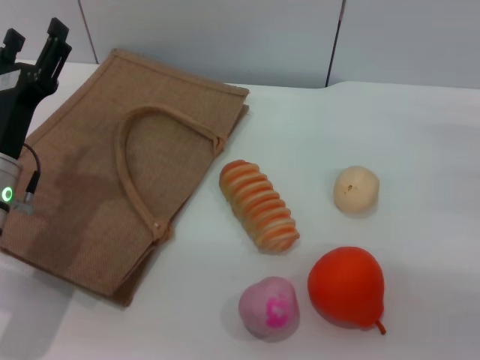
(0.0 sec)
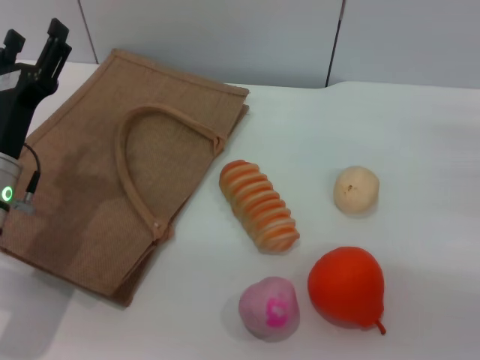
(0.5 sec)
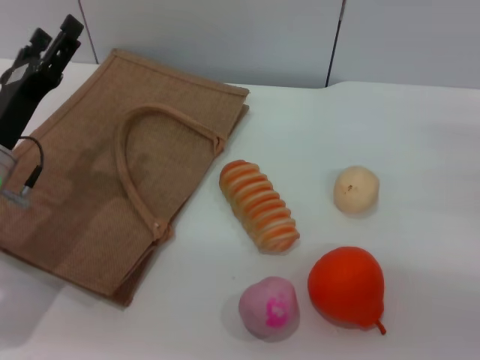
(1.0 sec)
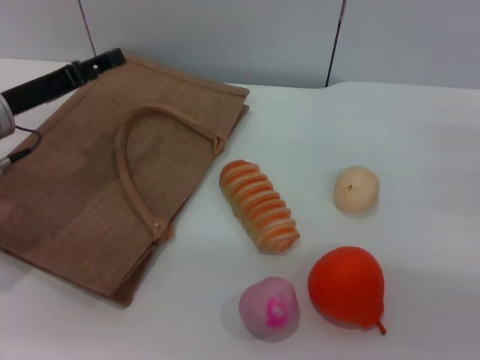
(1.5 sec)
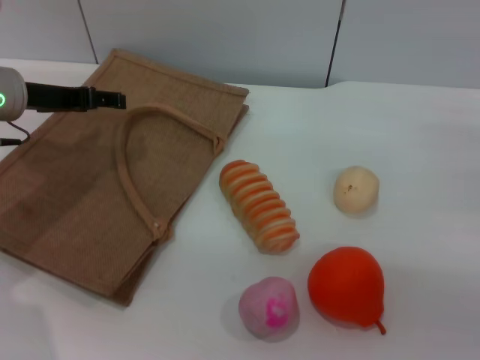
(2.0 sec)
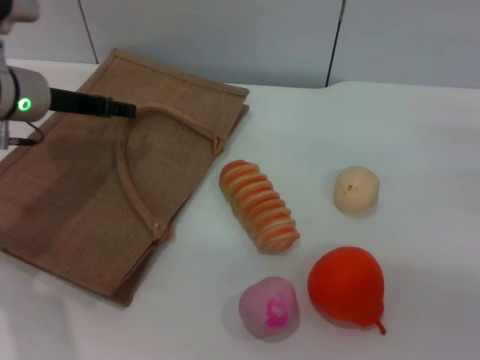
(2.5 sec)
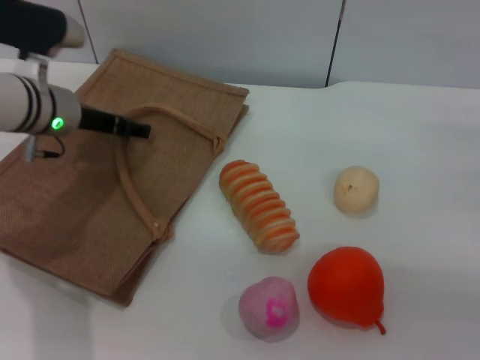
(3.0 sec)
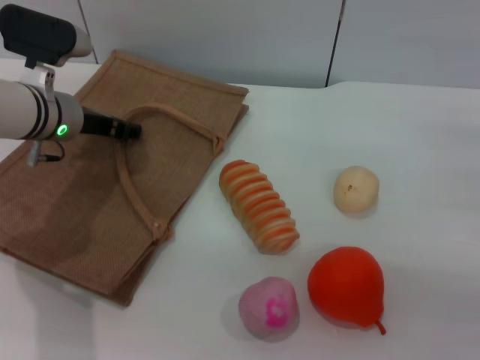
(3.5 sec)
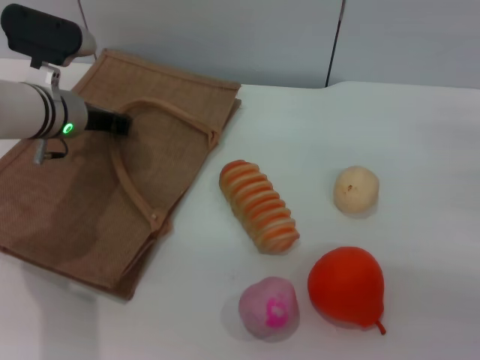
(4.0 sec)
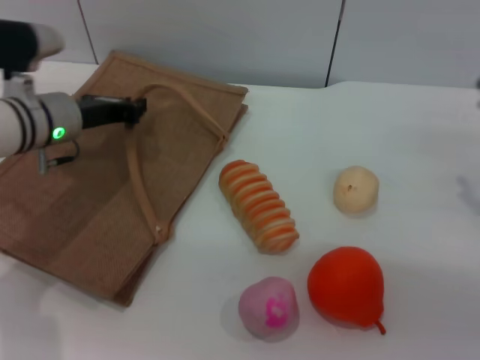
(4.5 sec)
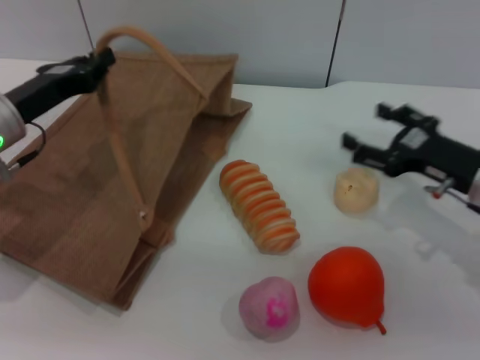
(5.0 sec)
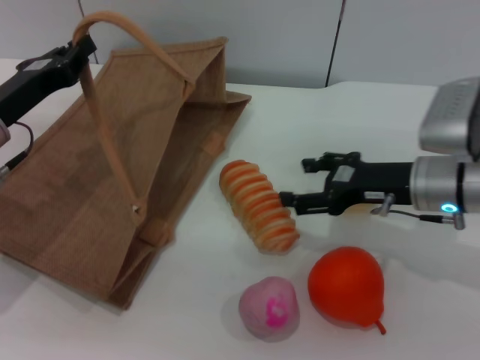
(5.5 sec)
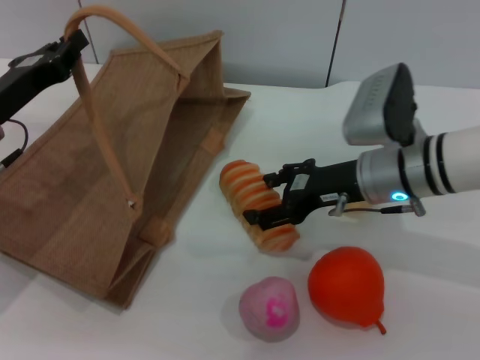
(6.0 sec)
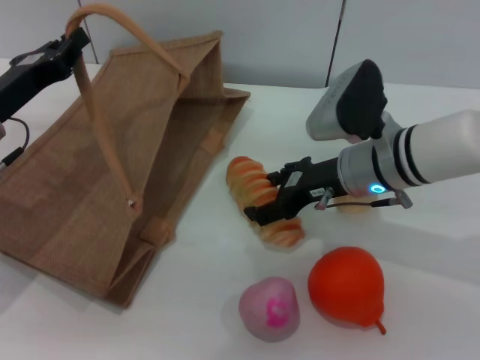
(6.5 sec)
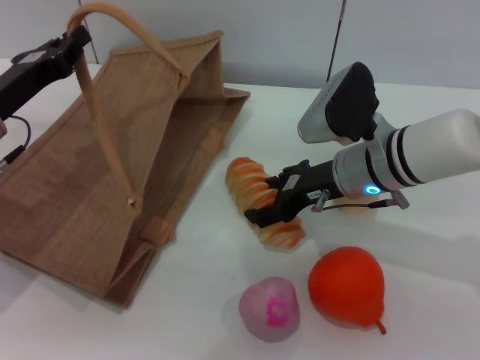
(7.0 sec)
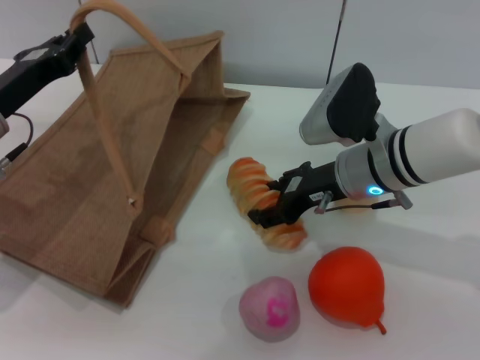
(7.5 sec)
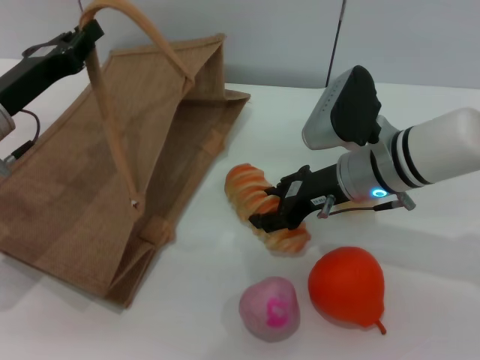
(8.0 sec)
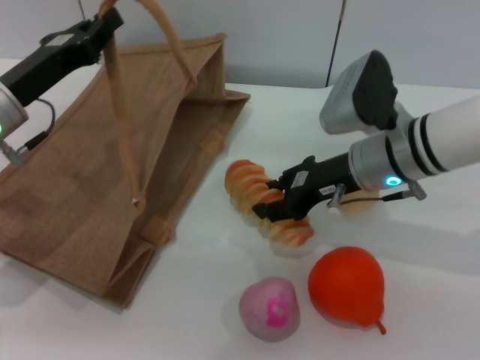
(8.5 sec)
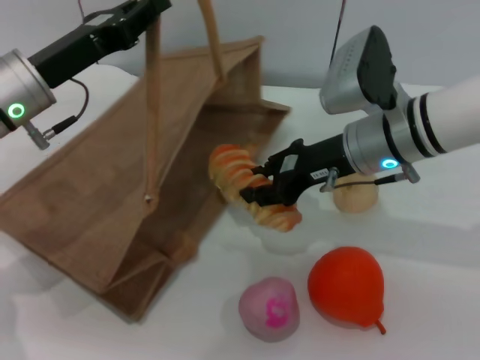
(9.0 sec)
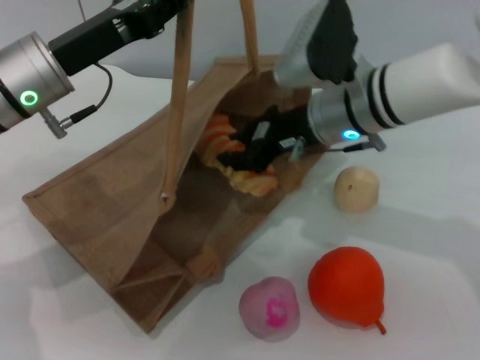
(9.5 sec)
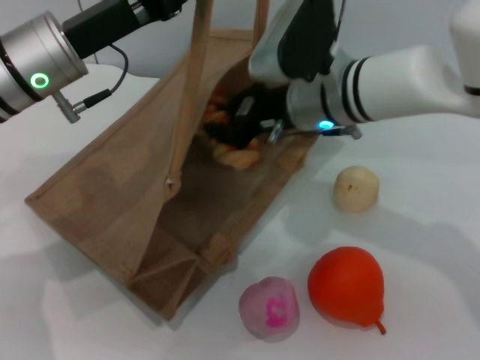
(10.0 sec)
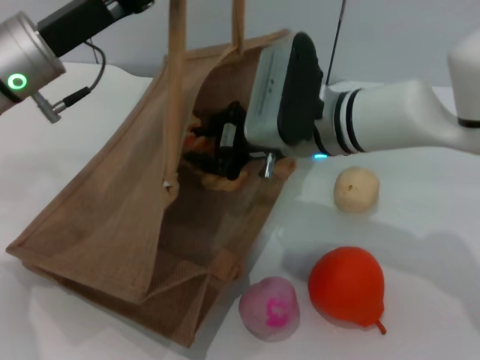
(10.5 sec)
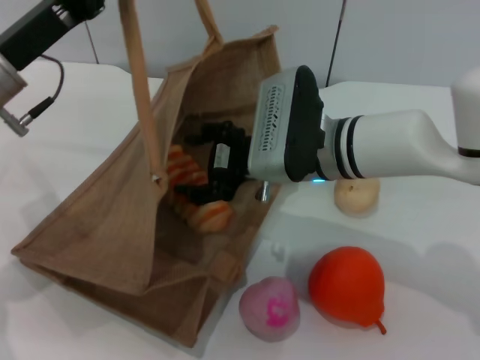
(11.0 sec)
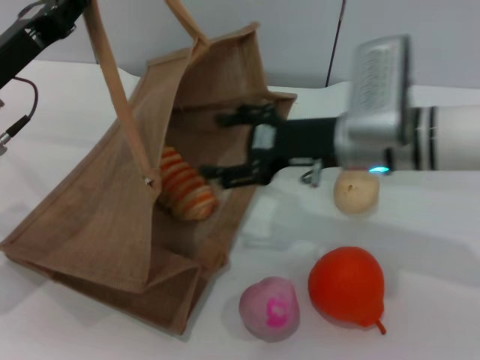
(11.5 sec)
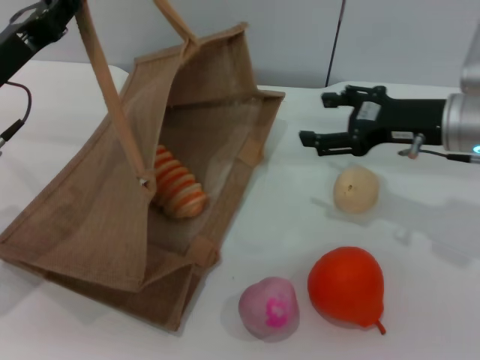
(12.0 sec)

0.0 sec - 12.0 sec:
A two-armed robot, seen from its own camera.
Task of the whole recording: pick up the bread and egg yolk pastry from the table and place it in the brown handbag.
Step, 0.0 sec - 4.5 sec: Lift the woven bag with the left gripper to open it.
Step, 5.0 sec - 8.5 sec: Pick up the bread with the right gripper.
Step, 9.5 sec - 11.0 sec: Place the bread into the woven bag with the right gripper.
0.0 sec - 2.0 sec: The left gripper moves forward and upward, some 15 cm.
2.0 sec - 4.0 sec: The left gripper goes approximately 5 cm to the right and downward, and closes its fingers.
4.0 sec - 6.0 sec: The right gripper is displaced to the left by approximately 20 cm. Meanwhile the left gripper is displaced backward and to the left by some 10 cm, and closes up.
6.0 sec - 8.0 sec: The right gripper closes.
8.0 sec - 10.0 sec: The right gripper travels to the left by approximately 5 cm, and closes its fingers; the left gripper shifts some 10 cm to the right and upward.
10.0 sec - 12.0 sec: The right gripper heads to the right, covering roughly 15 cm, and opens up, while the left gripper travels to the left by some 10 cm.

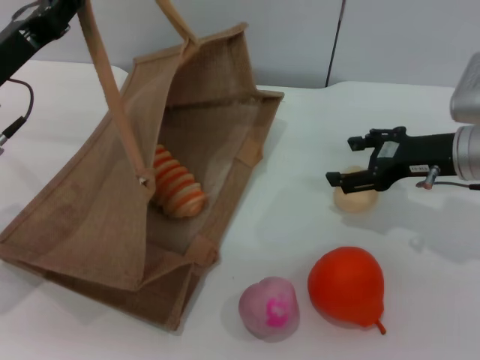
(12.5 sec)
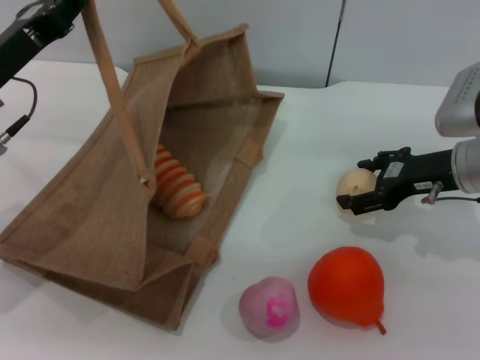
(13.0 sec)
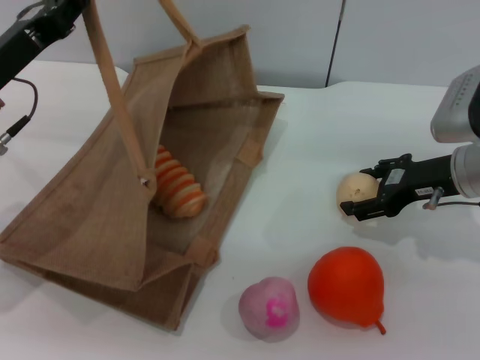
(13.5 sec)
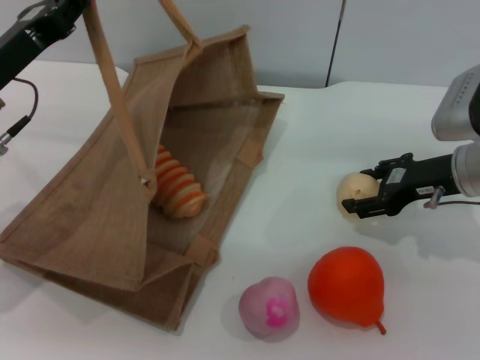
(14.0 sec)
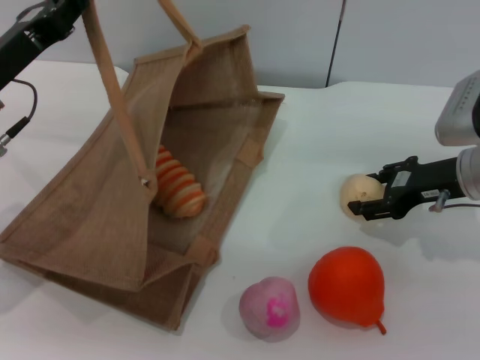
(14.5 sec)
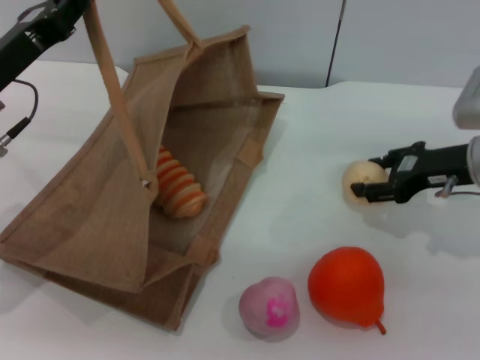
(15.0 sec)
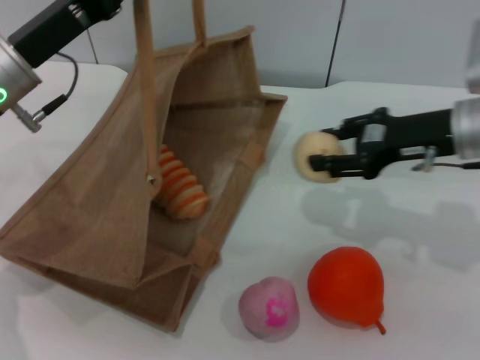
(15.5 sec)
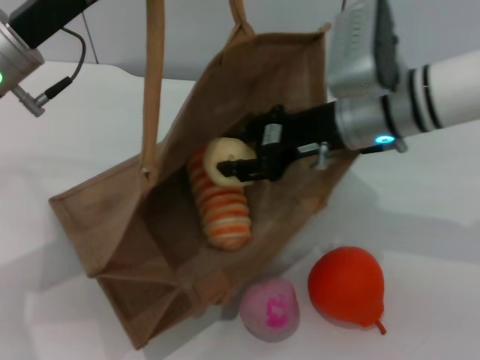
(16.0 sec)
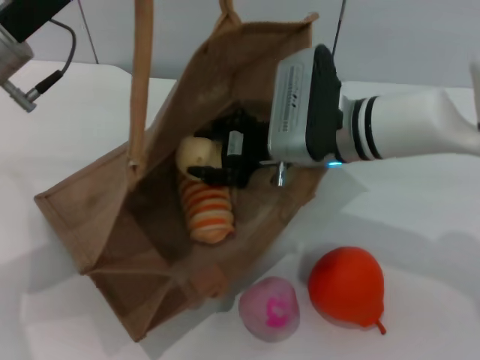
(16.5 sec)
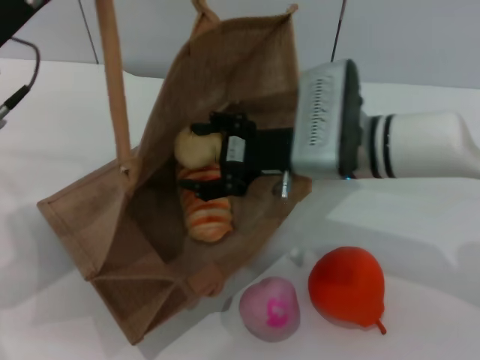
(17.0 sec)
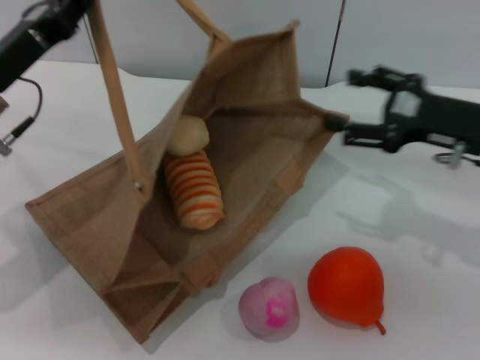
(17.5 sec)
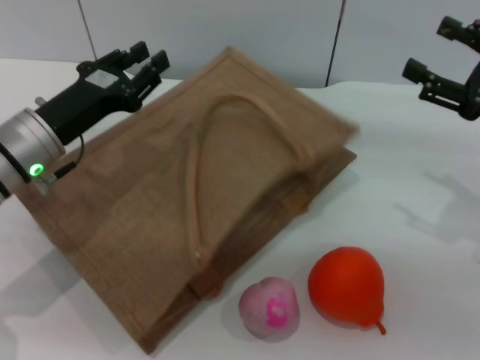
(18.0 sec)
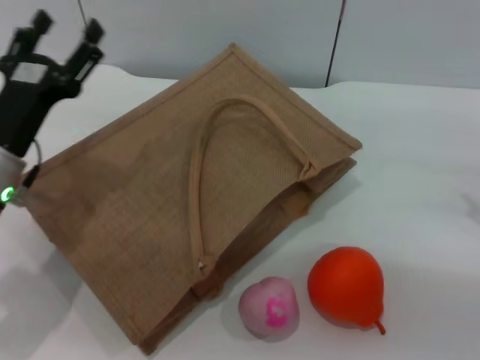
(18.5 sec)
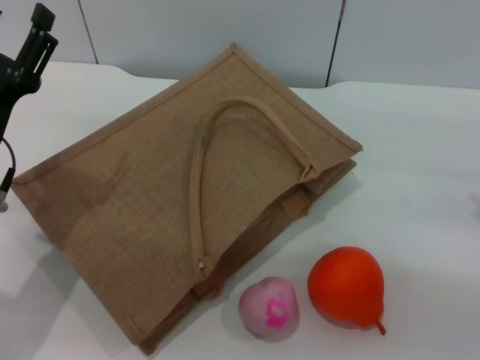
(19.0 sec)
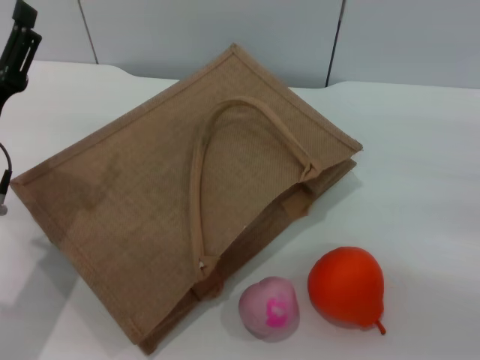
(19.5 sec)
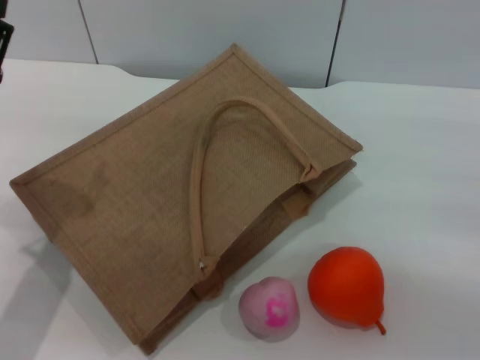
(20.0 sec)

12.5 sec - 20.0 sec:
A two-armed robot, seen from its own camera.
Task of the whole recording: pick up the bread and egg yolk pastry from the table and place it in the brown handbag.
Step, 12.5 sec - 15.0 sec: Pick up the egg yolk pastry with the right gripper.
Step, 15.5 sec - 17.0 sec: Place the egg yolk pastry into the woven bag with the right gripper.
Step, 17.5 sec - 18.0 sec: Lower the woven bag with the left gripper to close it.
12.5 sec - 14.5 sec: The right gripper closes up.
14.5 sec - 16.5 sec: The right gripper moves to the left, about 15 cm. Meanwhile the left gripper changes place by about 5 cm.
16.5 sec - 18.0 sec: The right gripper is displaced to the right by some 25 cm, and opens, while the left gripper shifts roughly 10 cm downward.
18.0 sec - 20.0 sec: The two grippers go approximately 5 cm backward. The left gripper opens.
